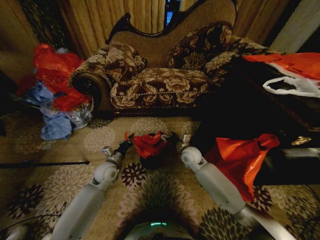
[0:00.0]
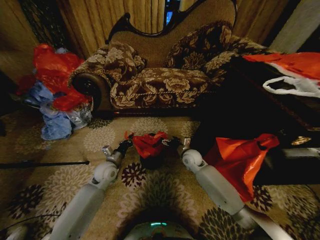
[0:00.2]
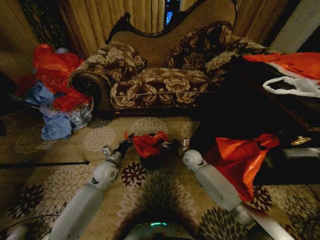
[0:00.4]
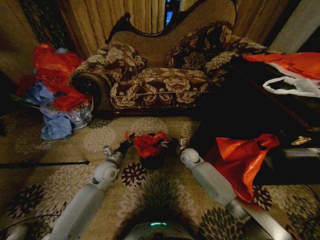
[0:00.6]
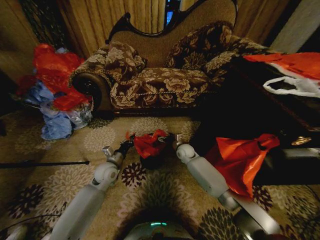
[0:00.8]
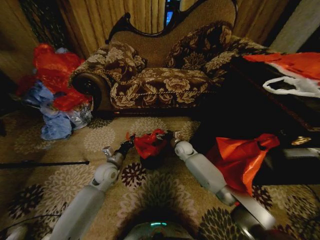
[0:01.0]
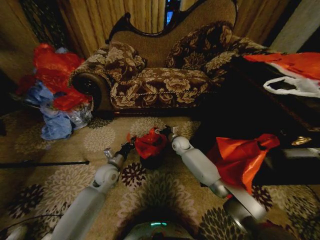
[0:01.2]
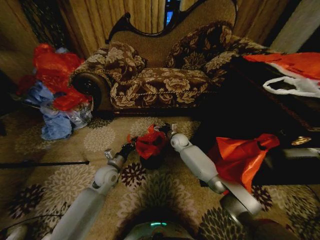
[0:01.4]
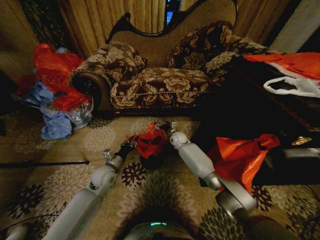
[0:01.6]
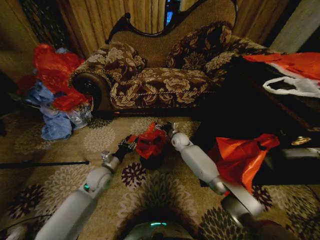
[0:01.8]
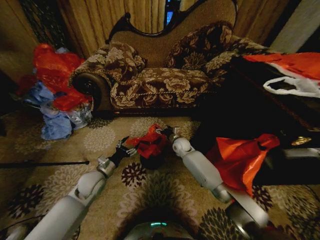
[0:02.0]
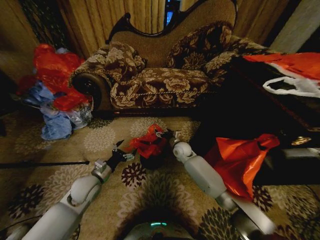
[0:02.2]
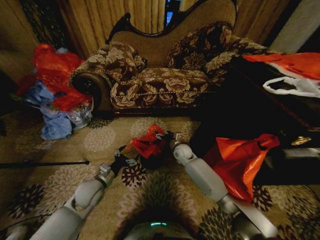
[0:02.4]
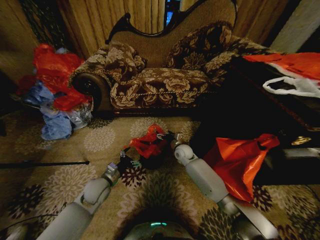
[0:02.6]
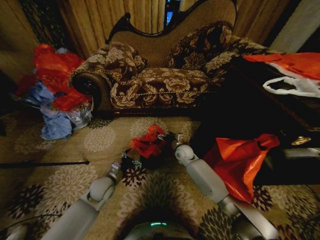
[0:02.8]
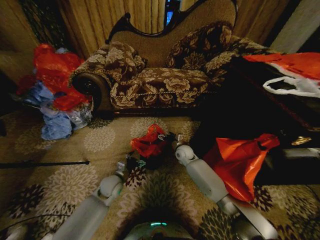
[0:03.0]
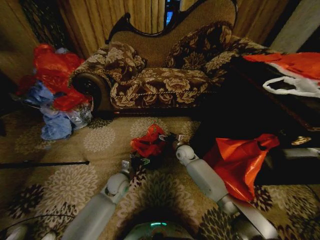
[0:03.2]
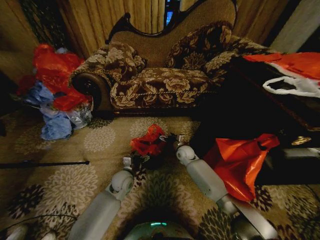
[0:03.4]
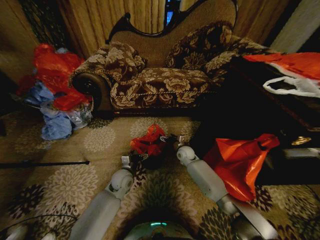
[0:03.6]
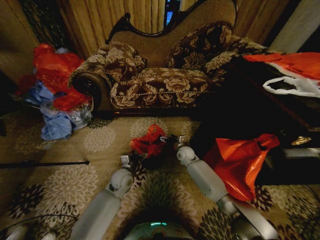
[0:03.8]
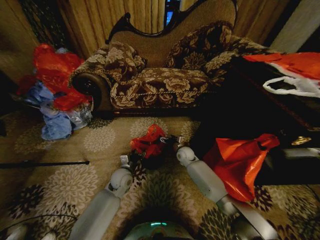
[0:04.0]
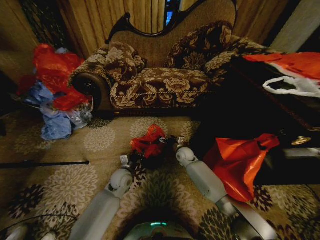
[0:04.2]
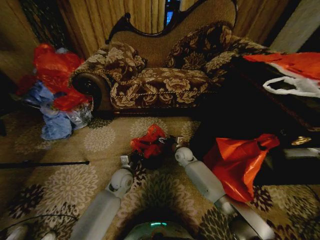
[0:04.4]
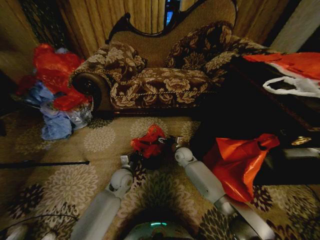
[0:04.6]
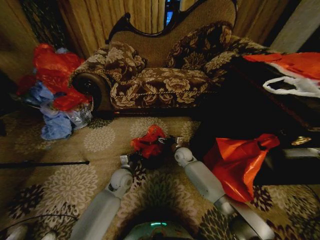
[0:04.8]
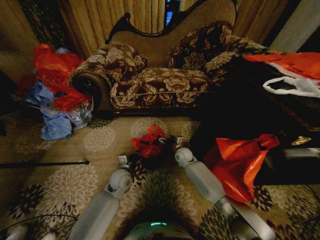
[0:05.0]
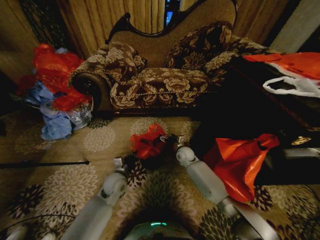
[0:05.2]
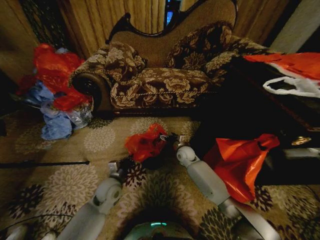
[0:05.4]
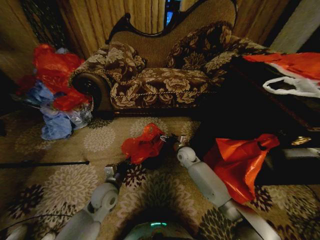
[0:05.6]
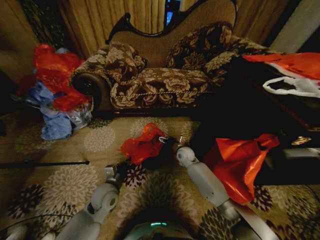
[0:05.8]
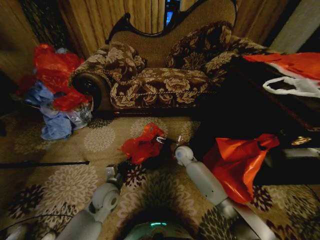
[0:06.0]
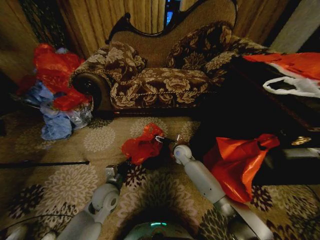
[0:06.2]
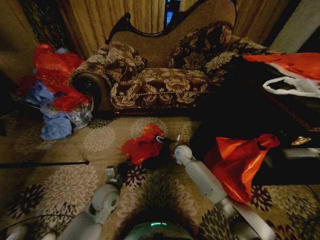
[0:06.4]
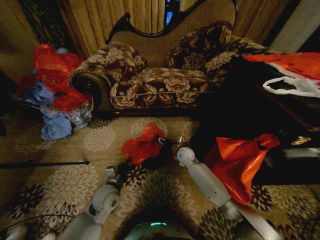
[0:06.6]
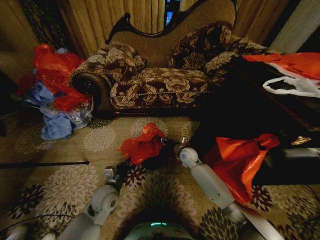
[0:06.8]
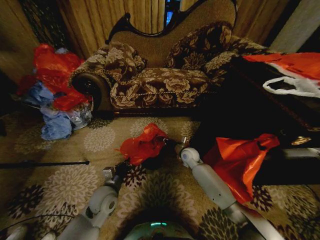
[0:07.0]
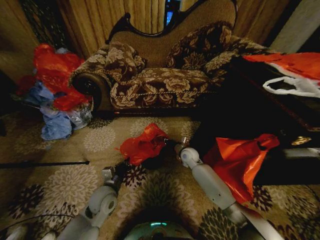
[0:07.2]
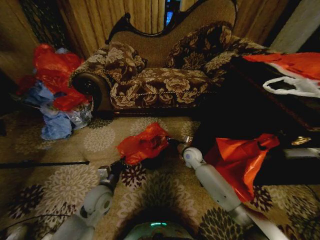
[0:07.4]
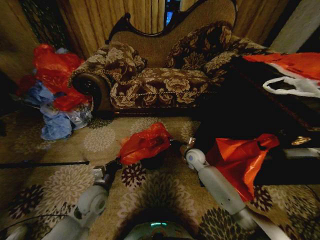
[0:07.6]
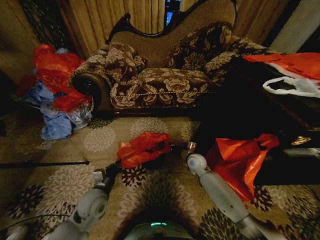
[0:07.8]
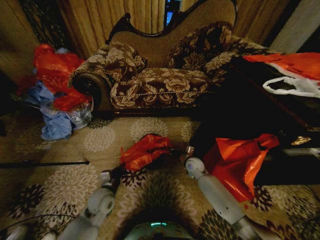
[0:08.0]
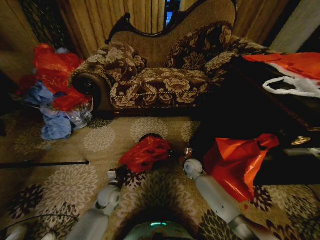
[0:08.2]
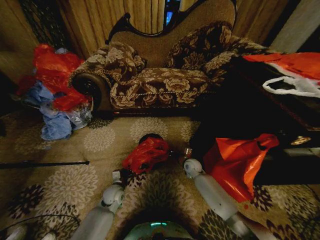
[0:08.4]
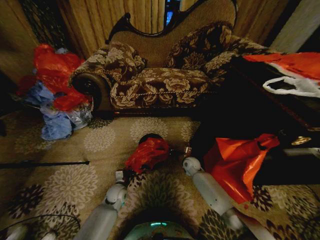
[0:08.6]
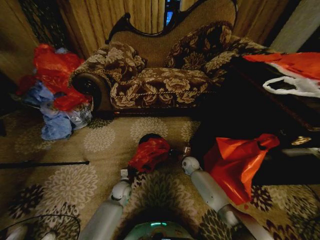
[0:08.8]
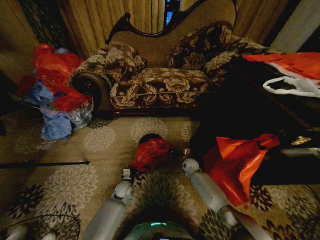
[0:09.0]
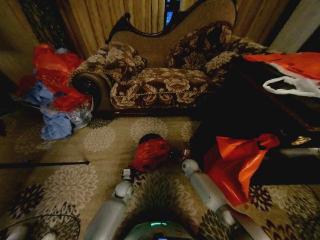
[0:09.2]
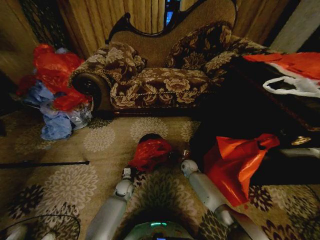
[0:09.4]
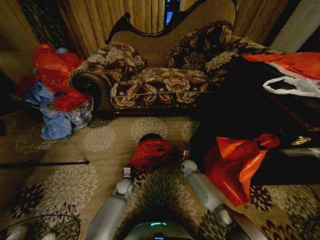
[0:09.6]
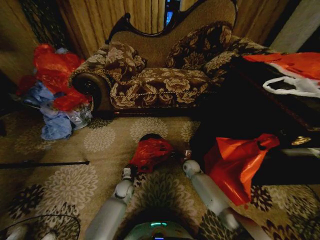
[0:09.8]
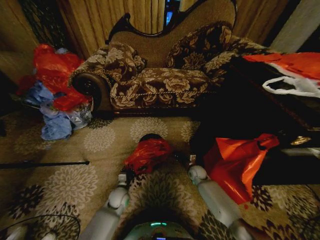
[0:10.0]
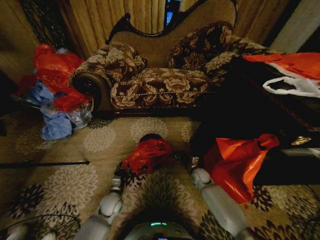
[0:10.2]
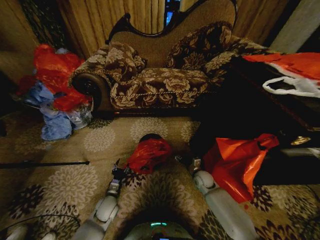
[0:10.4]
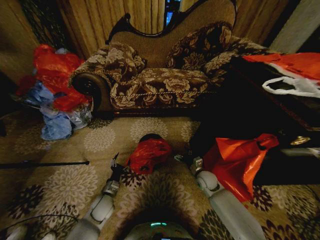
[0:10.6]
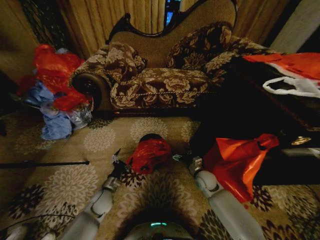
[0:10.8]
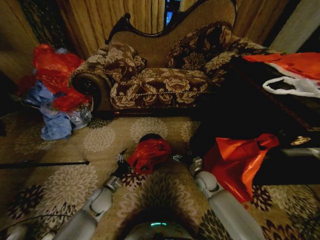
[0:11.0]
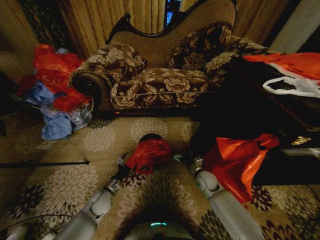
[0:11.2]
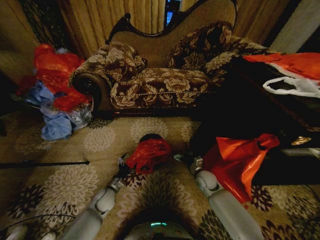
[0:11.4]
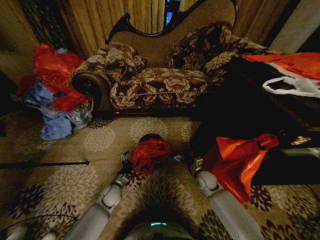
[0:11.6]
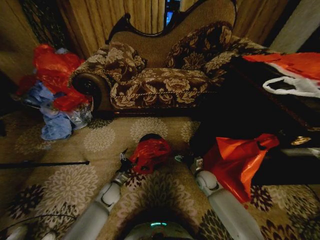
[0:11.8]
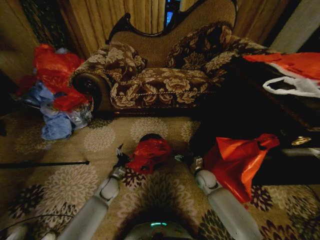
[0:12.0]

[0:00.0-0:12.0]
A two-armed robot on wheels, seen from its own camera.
Task of the whole recording: Place a garbage bag over the trash bin.
0:00.0 to 0:01.6: The right gripper shifts some 15 cm forward.
0:01.6 to 0:03.0: The right gripper travels backward by roughly 10 cm, while the left gripper goes approximately 5 cm downward, and opens.
0:03.0 to 0:04.4: The left gripper shifts by about 5 cm, and closes its fingers.
0:04.4 to 0:06.0: The left gripper is displaced backward by approximately 10 cm, and closes up.
0:06.0 to 0:07.6: The right gripper heads to the right, covering approximately 5 cm, and closes its fingers.
0:07.6 to 0:09.0: The right gripper is displaced downward by about 10 cm. Meanwhile the left gripper heads downward and forward, covering some 20 cm.
0:09.0 to 0:10.4: Both grippers move backward, about 10 cm. The right gripper opens up. Meanwhile the left gripper opens.
0:10.4 to 0:12.0: The left gripper heads forward, covering roughly 10 cm, and opens its fingers.

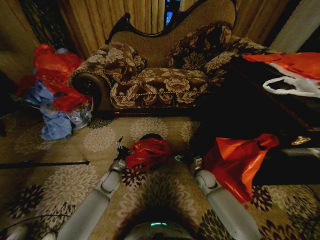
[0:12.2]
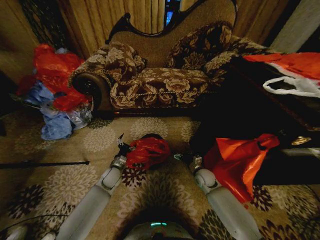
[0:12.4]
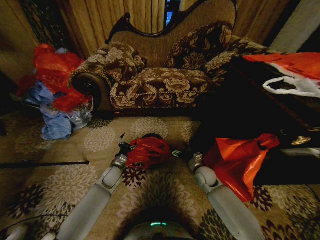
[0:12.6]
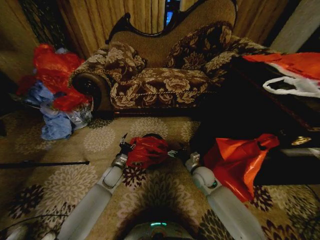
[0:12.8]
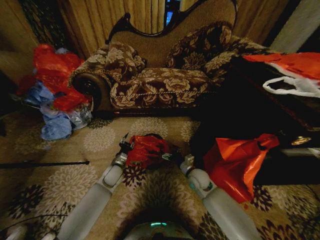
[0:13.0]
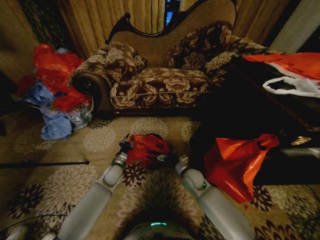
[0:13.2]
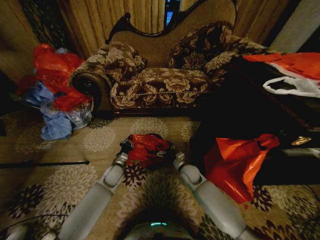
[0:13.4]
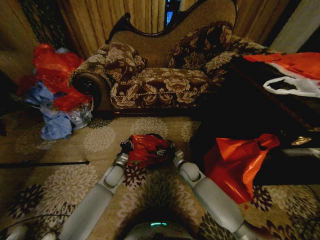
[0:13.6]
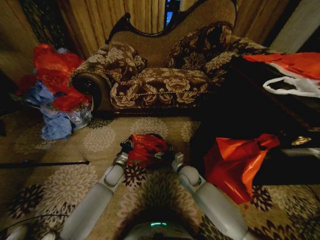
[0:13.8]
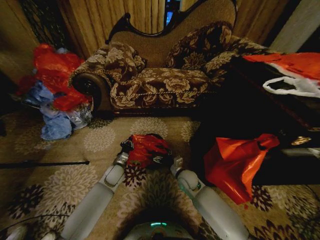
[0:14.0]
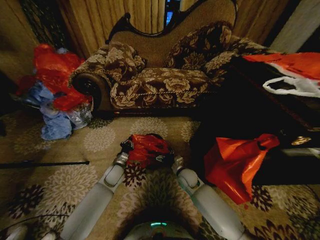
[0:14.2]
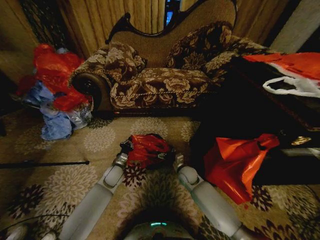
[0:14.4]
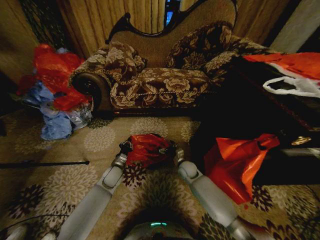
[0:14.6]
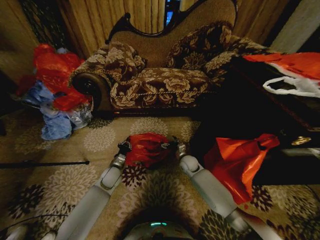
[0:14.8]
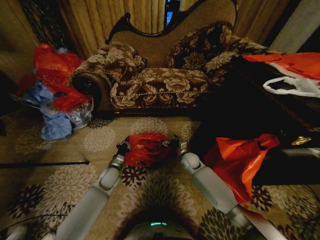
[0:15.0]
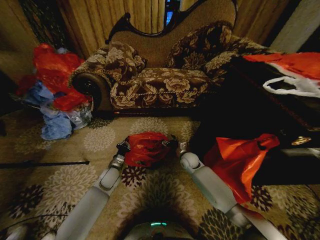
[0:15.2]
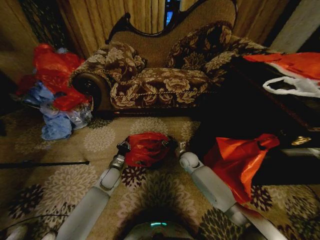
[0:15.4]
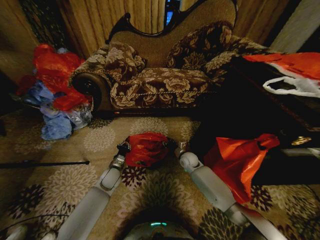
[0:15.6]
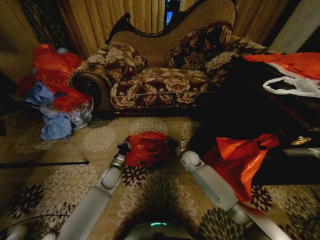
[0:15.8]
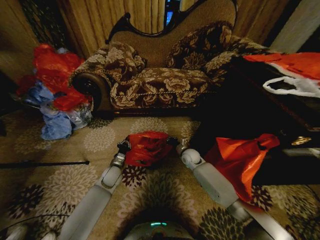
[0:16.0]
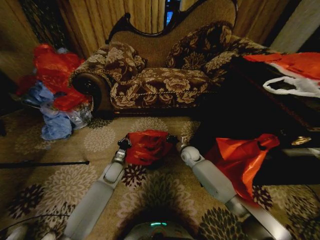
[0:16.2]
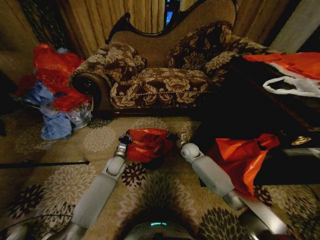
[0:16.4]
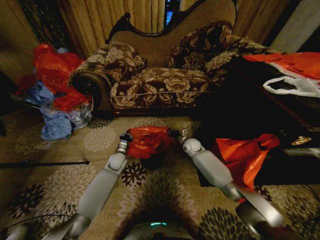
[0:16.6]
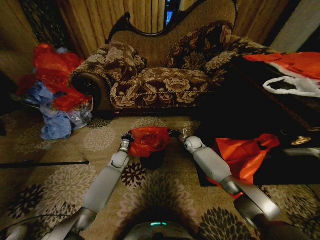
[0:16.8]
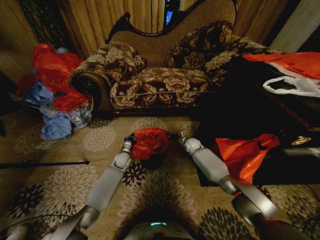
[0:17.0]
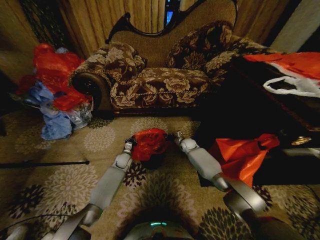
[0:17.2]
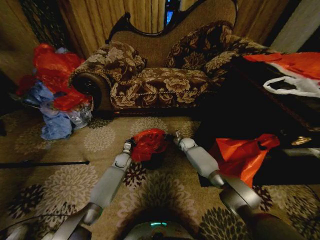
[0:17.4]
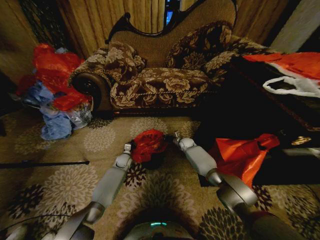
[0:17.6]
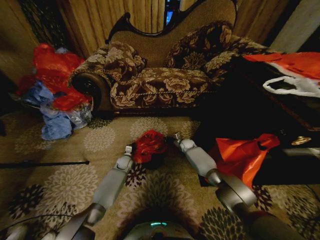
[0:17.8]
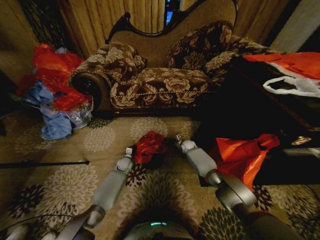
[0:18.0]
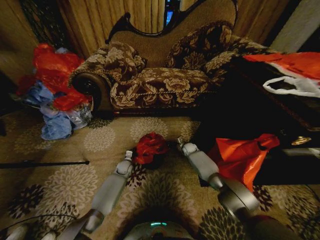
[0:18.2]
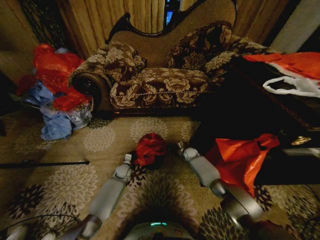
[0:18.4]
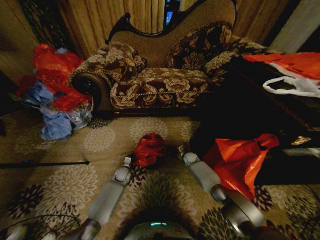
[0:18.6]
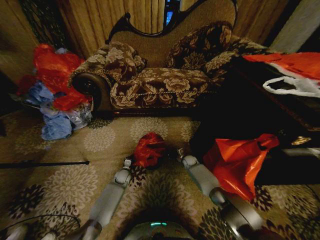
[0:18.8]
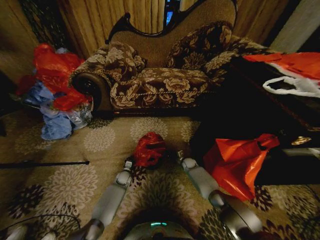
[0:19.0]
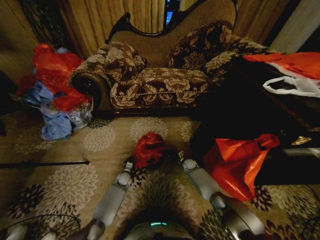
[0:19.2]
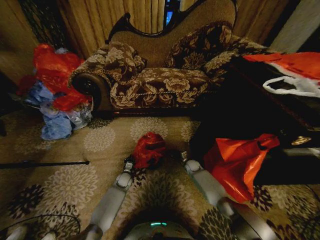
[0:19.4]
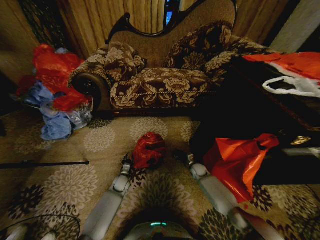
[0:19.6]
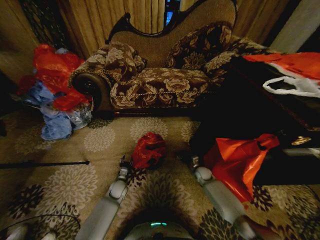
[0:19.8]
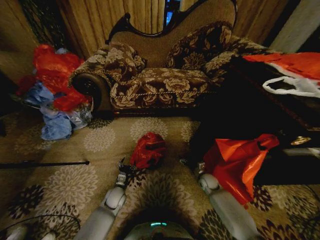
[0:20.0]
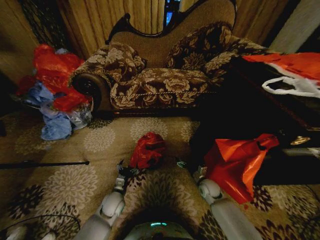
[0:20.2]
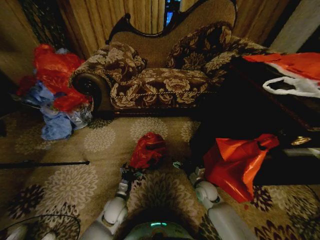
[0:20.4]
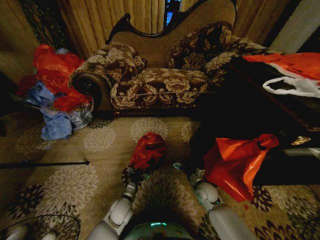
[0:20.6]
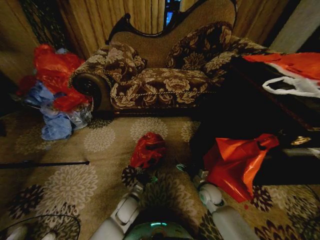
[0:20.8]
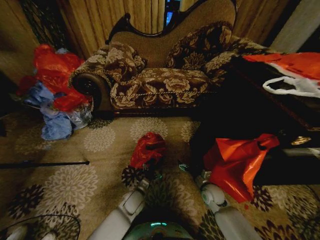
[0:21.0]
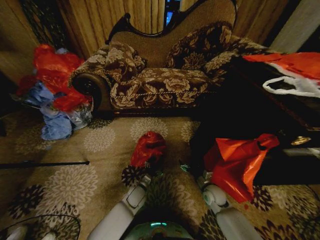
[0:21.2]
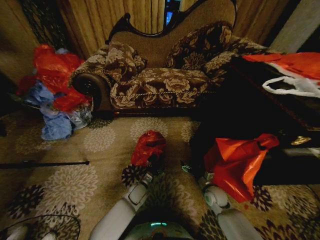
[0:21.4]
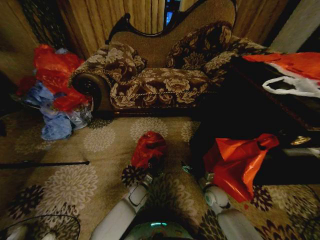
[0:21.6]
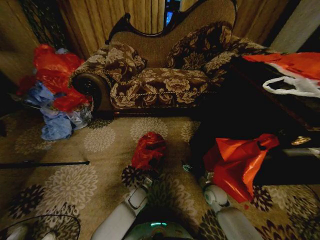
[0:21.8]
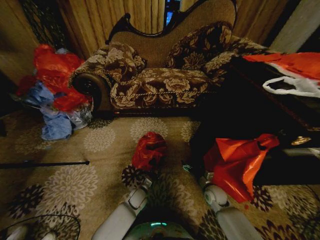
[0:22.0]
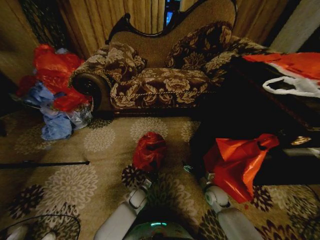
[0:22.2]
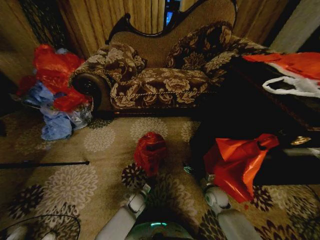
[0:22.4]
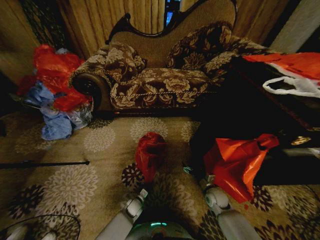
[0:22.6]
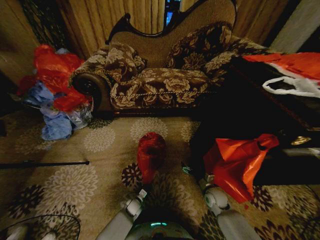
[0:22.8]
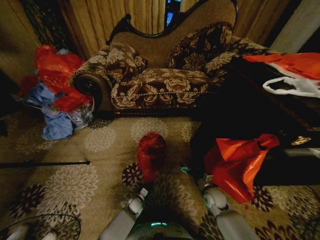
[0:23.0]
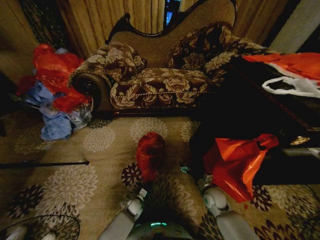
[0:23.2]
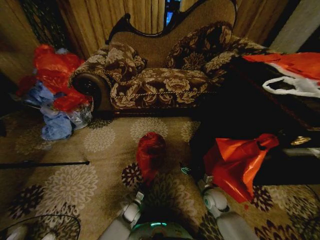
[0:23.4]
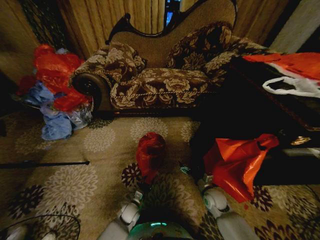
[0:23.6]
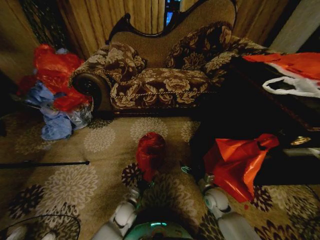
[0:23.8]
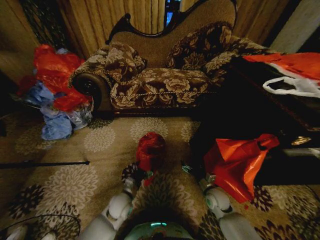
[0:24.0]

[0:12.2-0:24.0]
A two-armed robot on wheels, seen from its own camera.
Task of the whole recording: Place a garbage bag over the trash bin.
0:12.2 to 0:13.6: The right gripper heads to the left, covering approximately 10 cm. Meanwhile the left gripper closes up.
0:13.6 to 0:15.2: The right gripper travels forward by roughly 5 cm.
0:15.2 to 0:16.6: The two grippers go roughly 10 cm forward. The right gripper closes.
0:16.6 to 0:18.2: Both grippers move downward, roughly 10 cm.
0:18.2 to 0:19.6: The left gripper heads backward, covering approximately 10 cm. Meanwhile the right gripper is displaced backward and downward by roughly 15 cm.
0:19.6 to 0:21.0: The right gripper travels backward by about 15 cm, and opens its fingers. Meanwhile the left gripper is displaced backward and to the right by some 15 cm, and opens.
0:21.0 to 0:22.6: The left gripper heads downward, covering roughly 15 cm, and closes.
0:22.6 to 0:24.0: The left gripper moves upward, roughly 20 cm, and opens its fingers.
